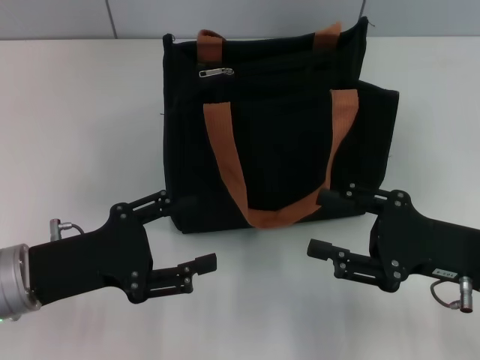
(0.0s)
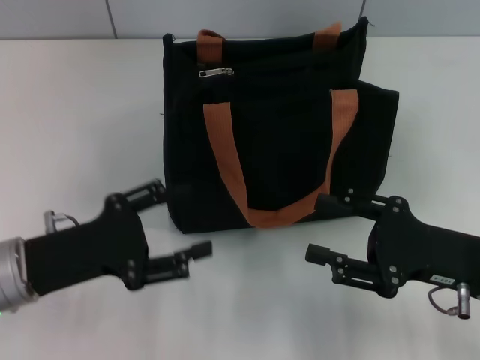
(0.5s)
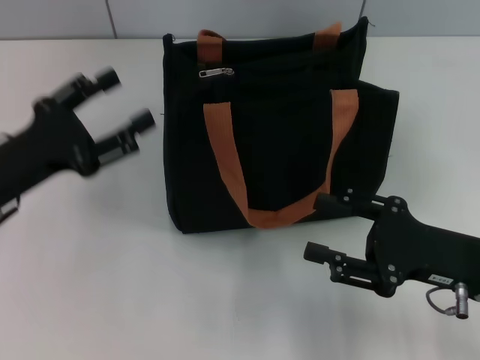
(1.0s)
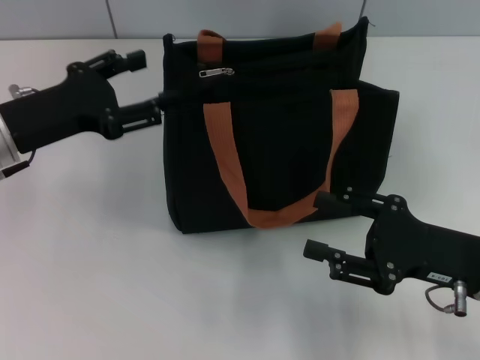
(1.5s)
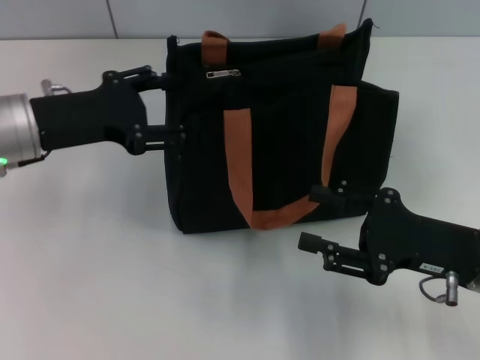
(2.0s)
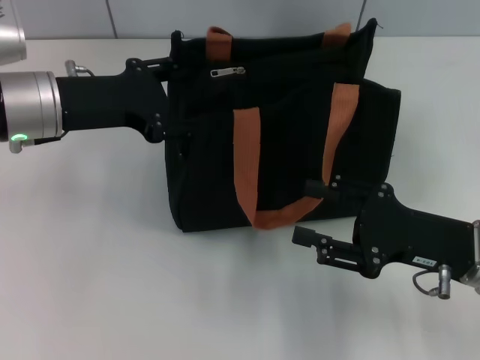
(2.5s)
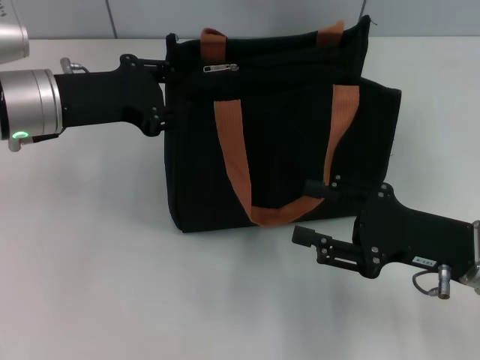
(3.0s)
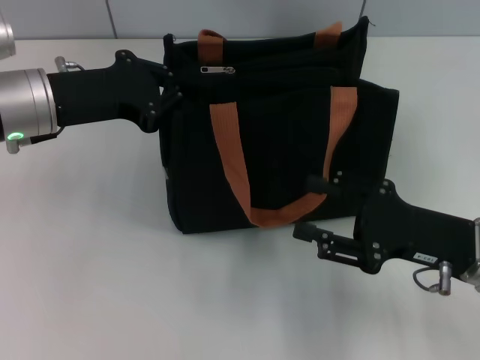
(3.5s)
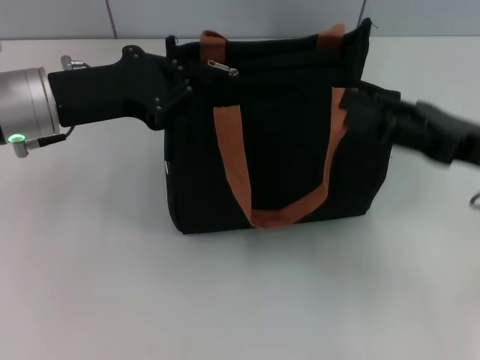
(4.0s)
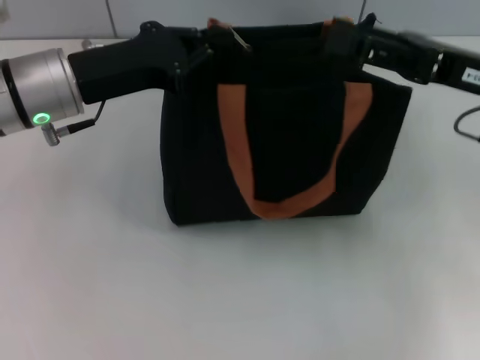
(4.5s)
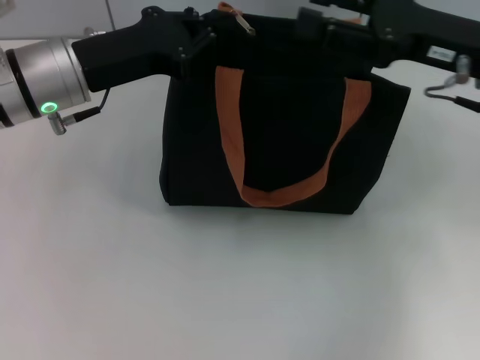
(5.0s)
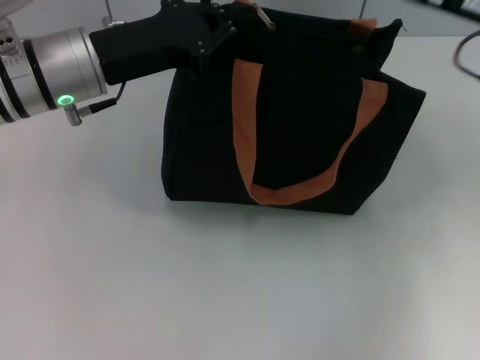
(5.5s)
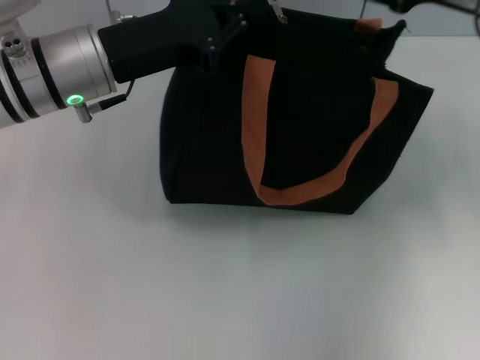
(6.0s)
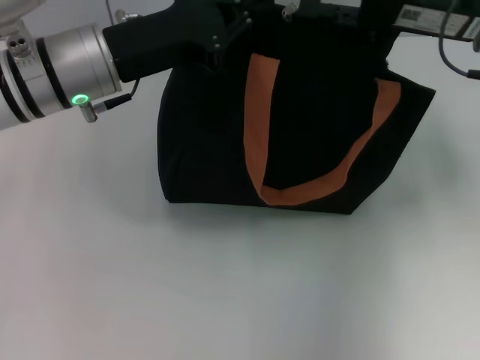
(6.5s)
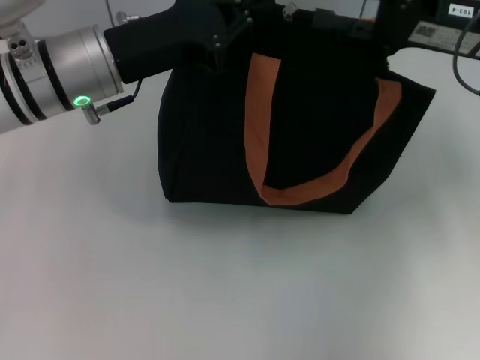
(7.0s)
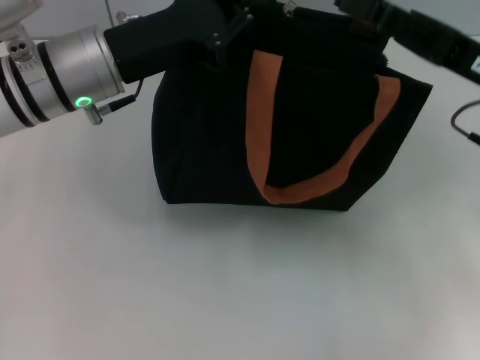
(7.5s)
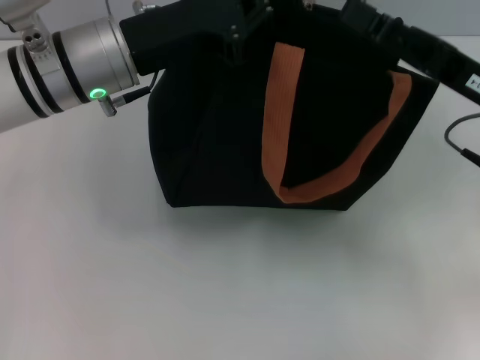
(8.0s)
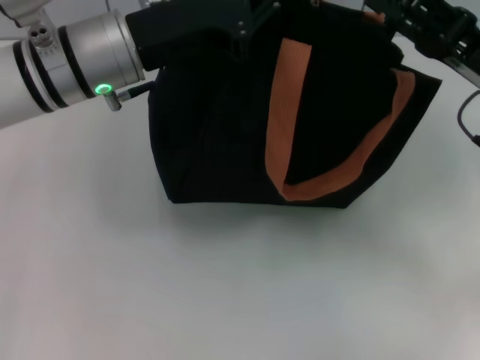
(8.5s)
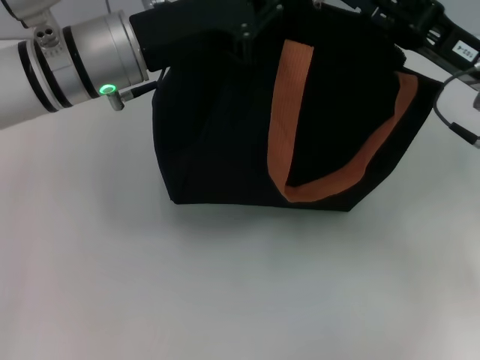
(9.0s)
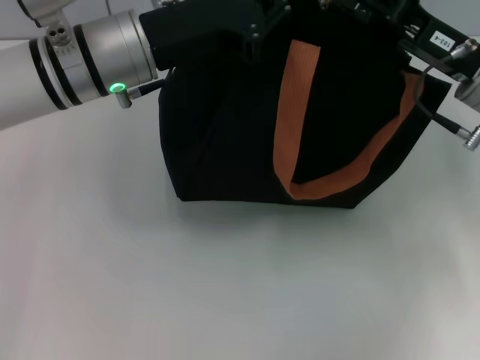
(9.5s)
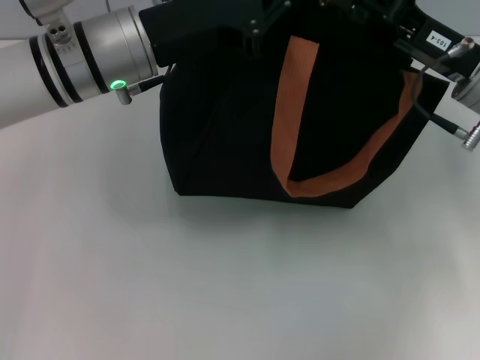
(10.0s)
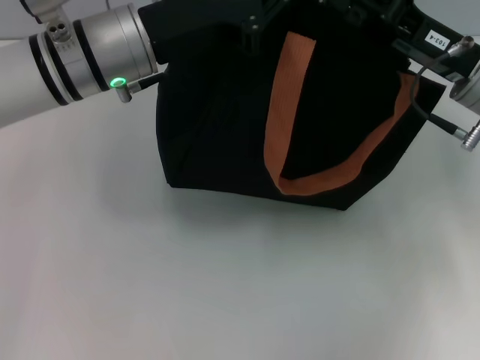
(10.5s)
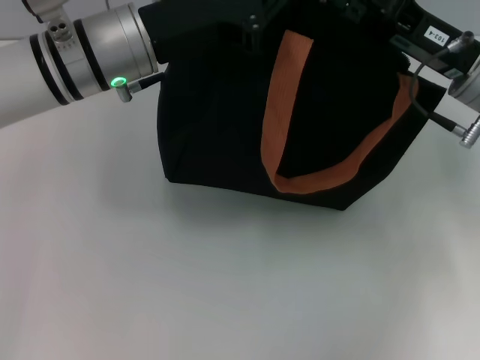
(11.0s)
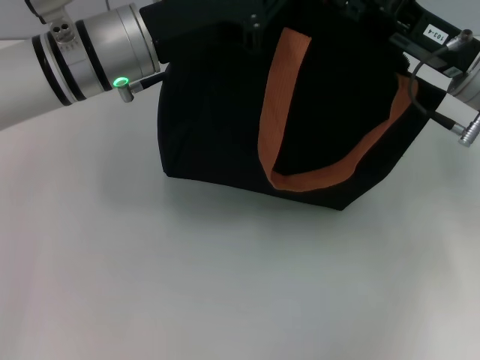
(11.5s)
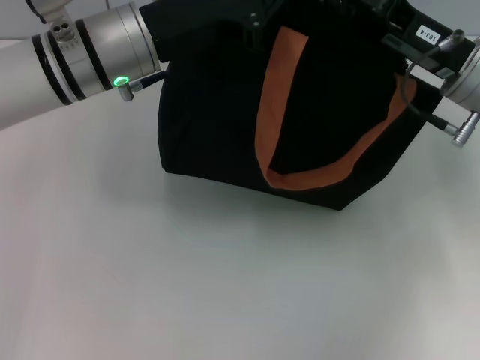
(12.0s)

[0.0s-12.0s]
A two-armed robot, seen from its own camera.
0.0s to 2.0s: The left gripper moves forward and upward, some 15 cm.
2.0s to 4.0s: The right gripper heads upward, covering some 5 cm; the left gripper closes its fingers.
4.0s to 6.0s: The right gripper shifts about 10 cm forward and upward. Meanwhile the left gripper changes place by some 5 cm.
6.0s to 8.0s: The right gripper is displaced backward and downward by approximately 10 cm.
8.0s to 10.0s: The grippers stay close to where they were, moving slightly.
10.0s to 12.0s: The two grippers keep their place.

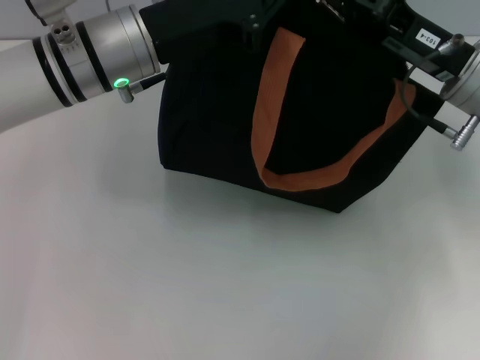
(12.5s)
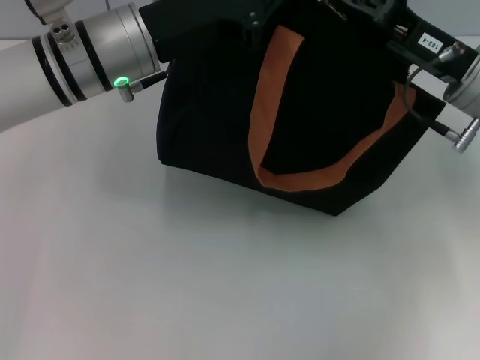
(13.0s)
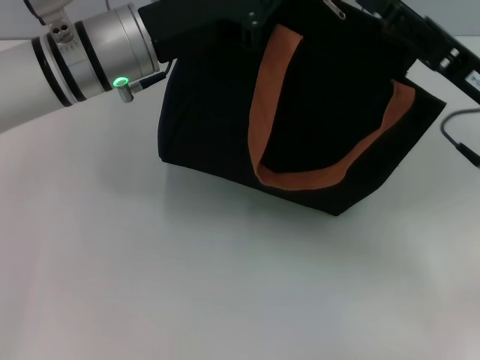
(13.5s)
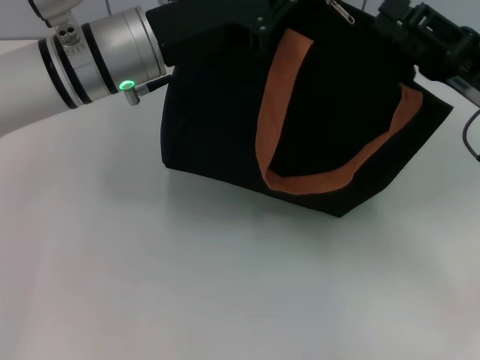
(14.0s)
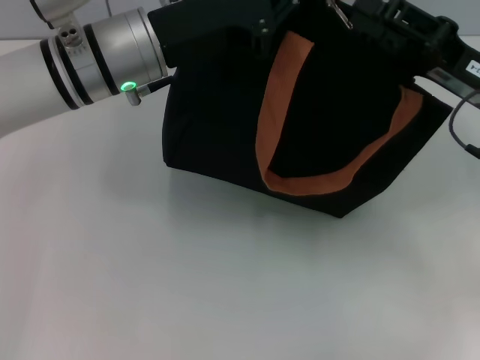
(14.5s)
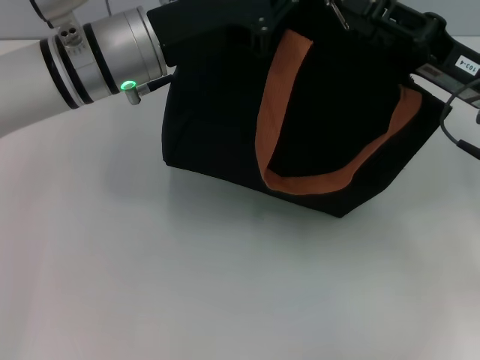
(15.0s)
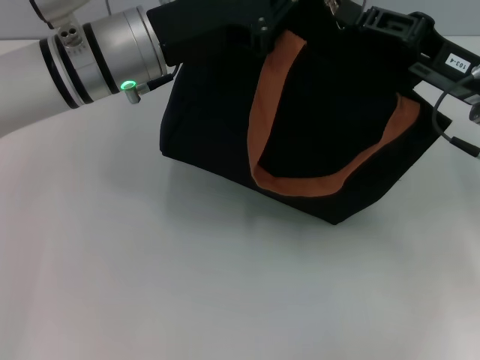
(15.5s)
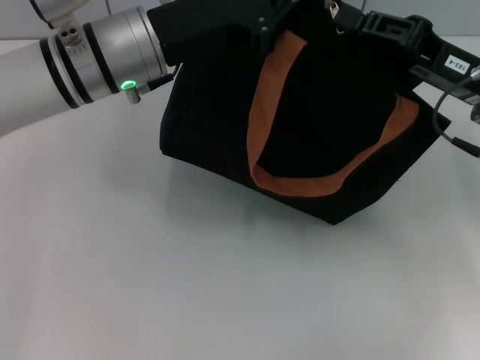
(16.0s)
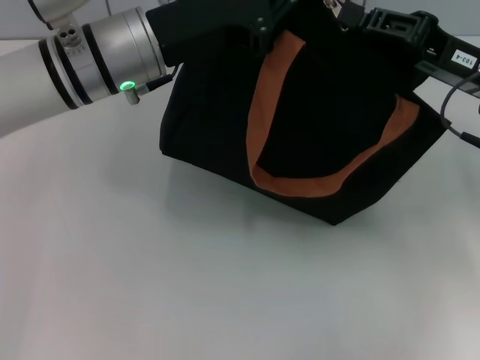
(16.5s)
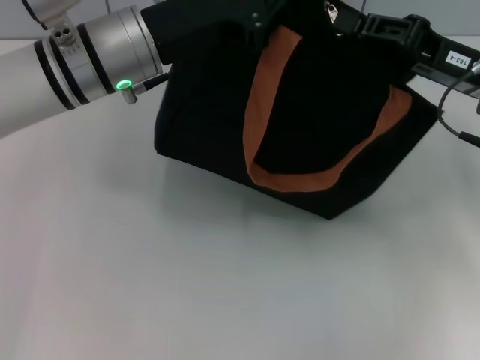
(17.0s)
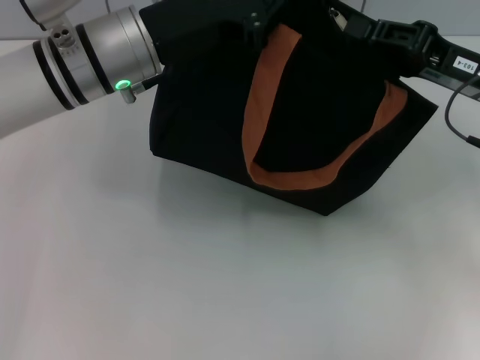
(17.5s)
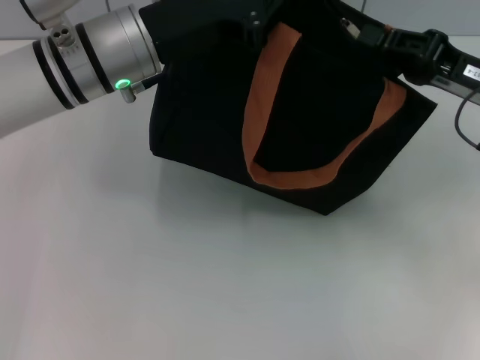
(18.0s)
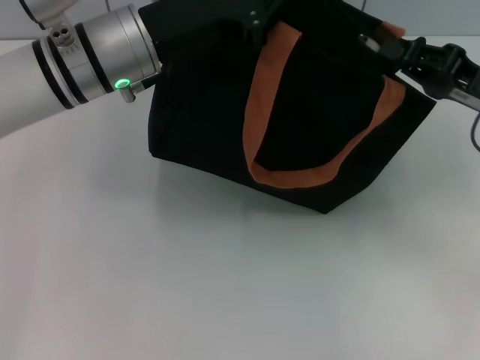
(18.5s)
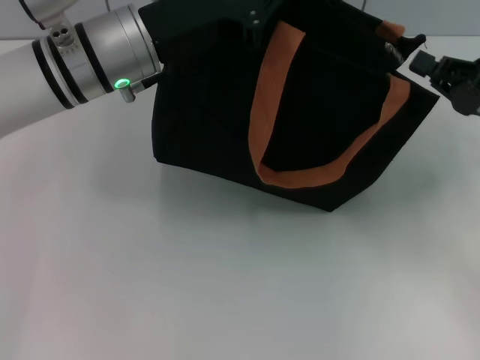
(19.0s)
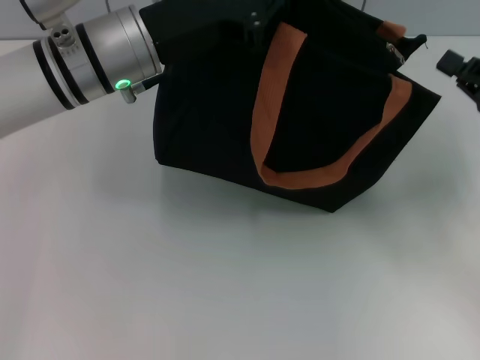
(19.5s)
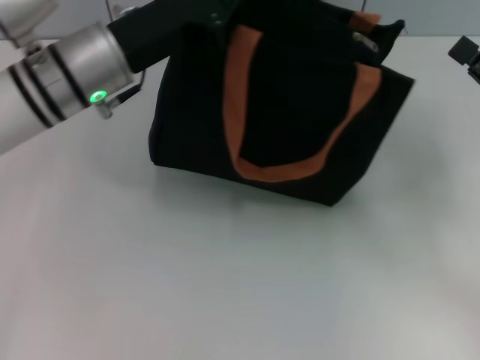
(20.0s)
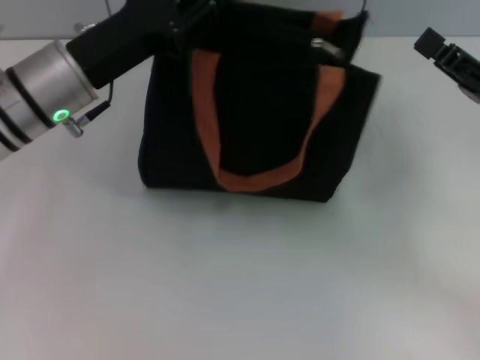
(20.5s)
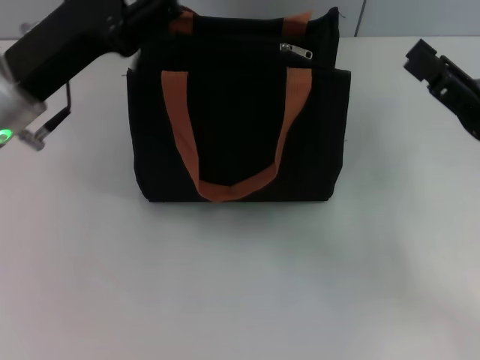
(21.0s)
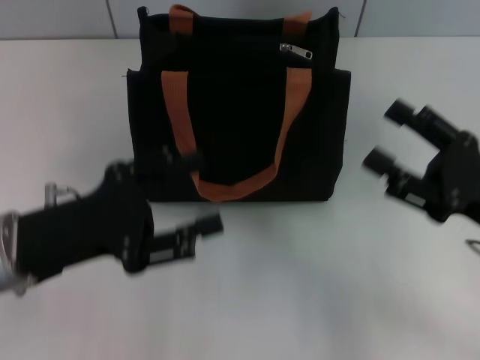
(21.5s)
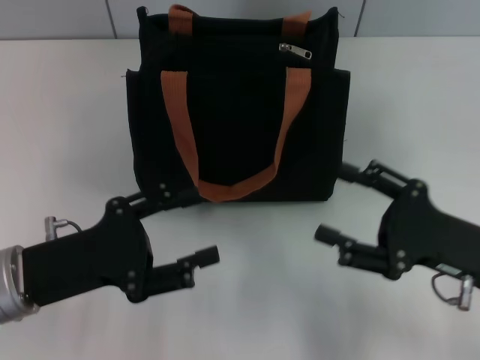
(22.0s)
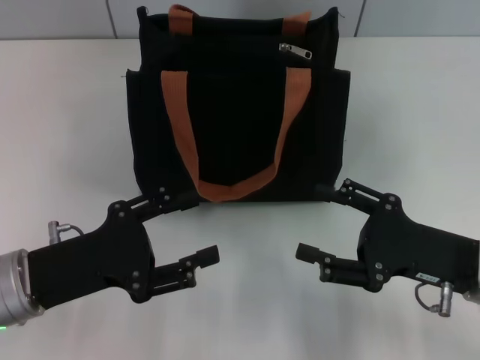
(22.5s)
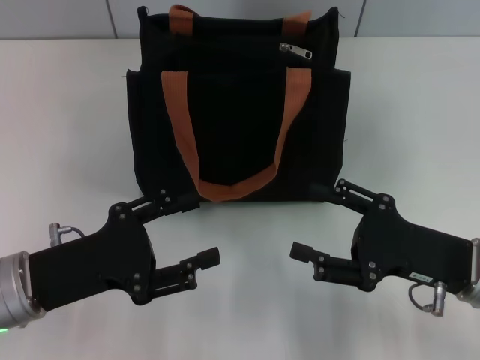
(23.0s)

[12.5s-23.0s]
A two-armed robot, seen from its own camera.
Step, 12.5s to 20.0s: Pull up the zipper with your right hand.
Step, 20.5s to 21.0s: Grab the zipper with your left hand.
14.5s to 16.5s: The right gripper closes up.
16.5s to 19.0s: The right gripper is displaced to the right by about 5 cm.
19.0s to 21.0s: The right gripper heads backward, covering roughly 5 cm, and opens up. Meanwhile the left gripper is displaced to the left and backward by some 10 cm, and opens its fingers.
21.0s to 23.0s: The right gripper moves downward, roughly 5 cm; the left gripper travels backward and downward by roughly 15 cm.

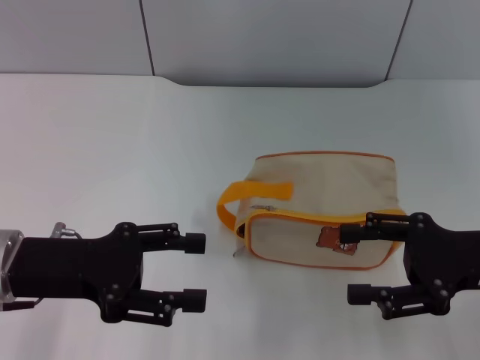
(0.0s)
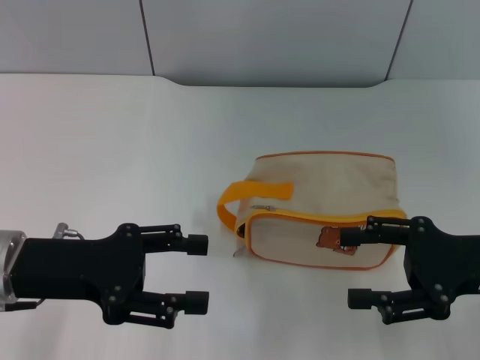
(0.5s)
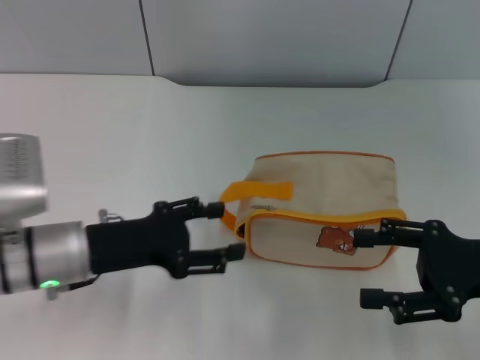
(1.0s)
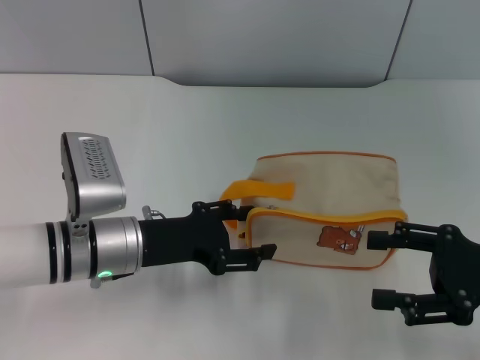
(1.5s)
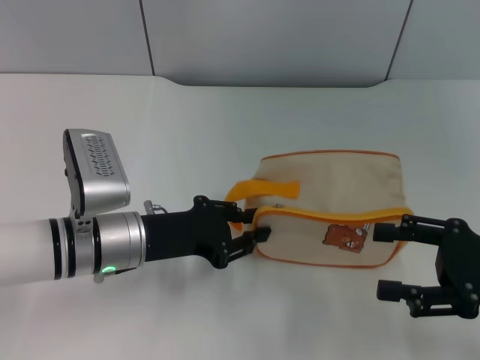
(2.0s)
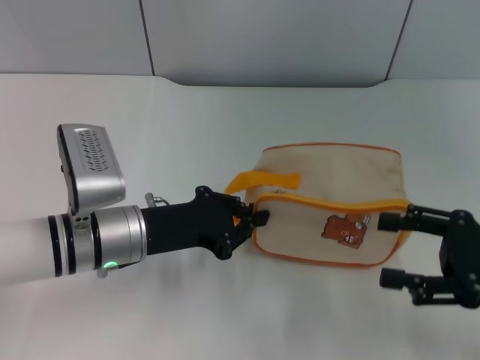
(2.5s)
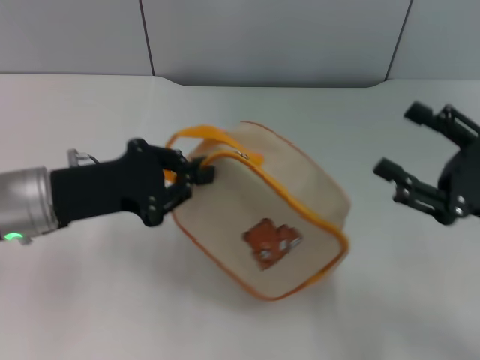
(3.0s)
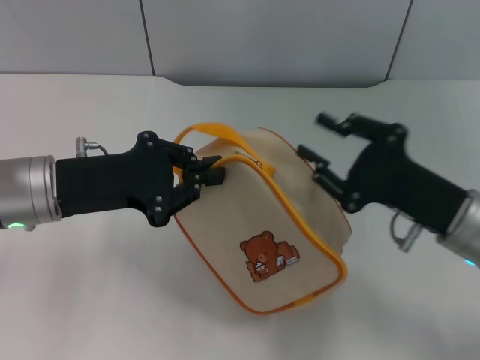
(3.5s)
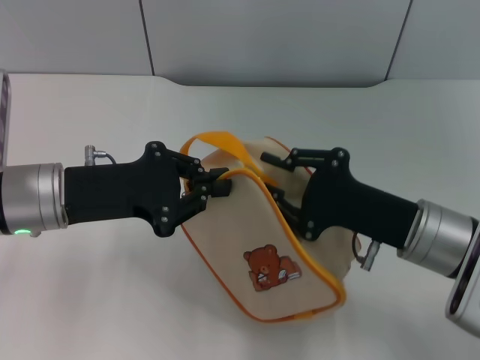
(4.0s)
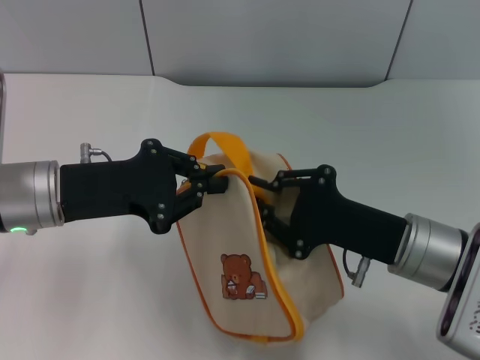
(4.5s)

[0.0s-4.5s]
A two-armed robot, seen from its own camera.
Step, 0.0s to 3.0s: Pick up the bag with left gripper.
0.0s to 2.0s: The left gripper travels to the right and downward by approximately 10 cm, and closes.
2.0s to 4.5s: The right gripper goes about 15 cm to the left, and closes its fingers. The left gripper moves upward and to the left, roughly 10 cm, and closes its fingers.
